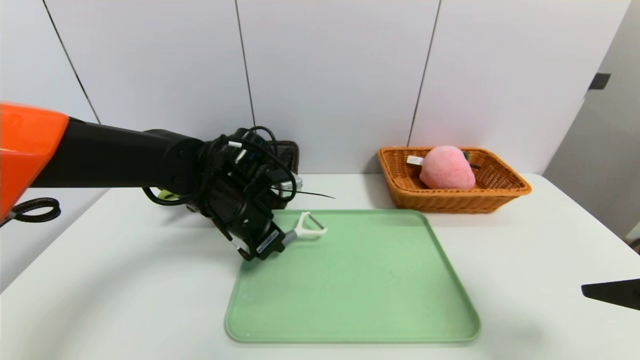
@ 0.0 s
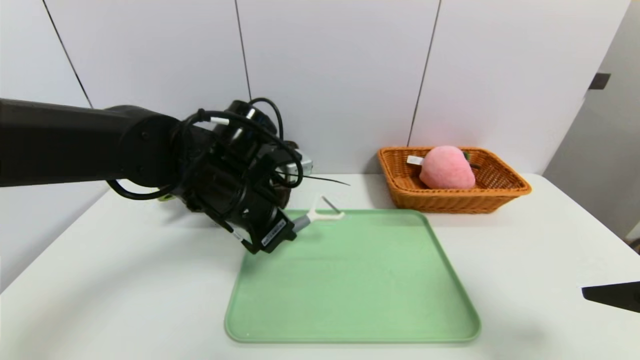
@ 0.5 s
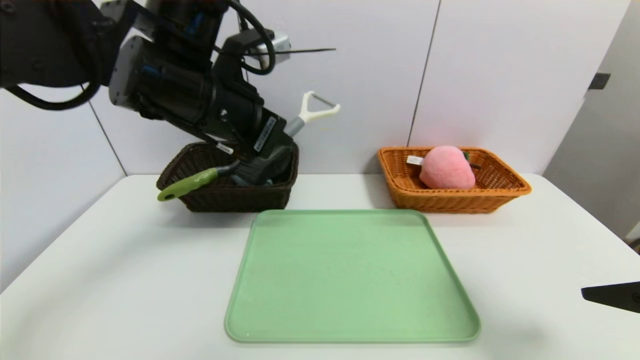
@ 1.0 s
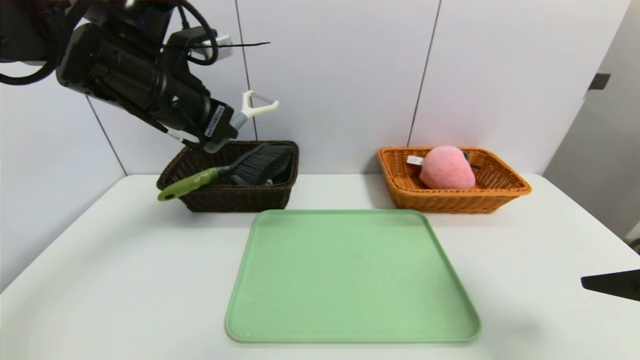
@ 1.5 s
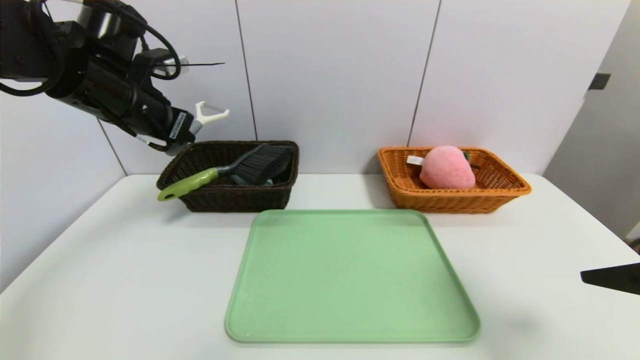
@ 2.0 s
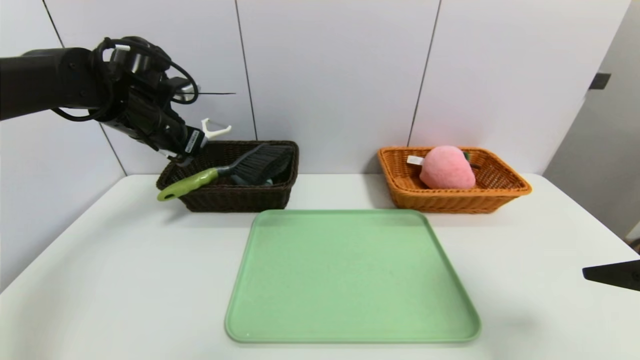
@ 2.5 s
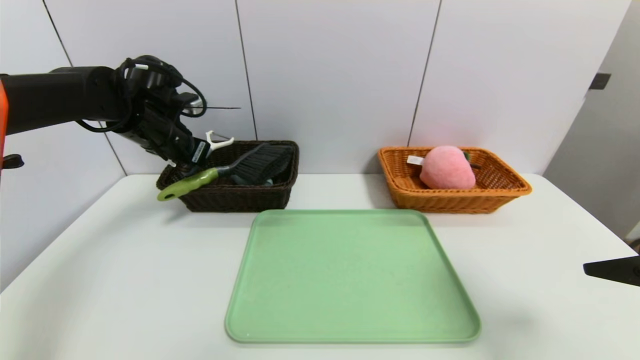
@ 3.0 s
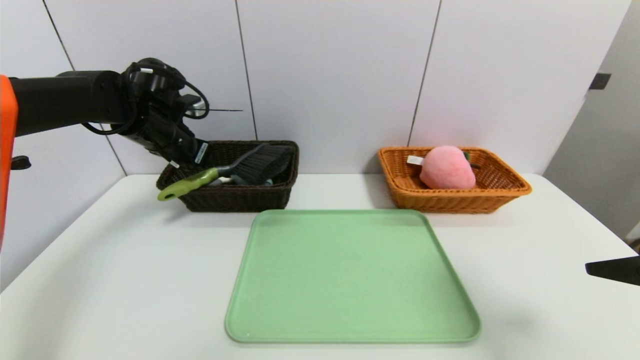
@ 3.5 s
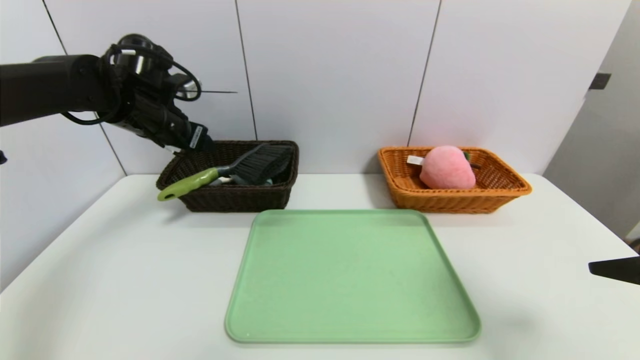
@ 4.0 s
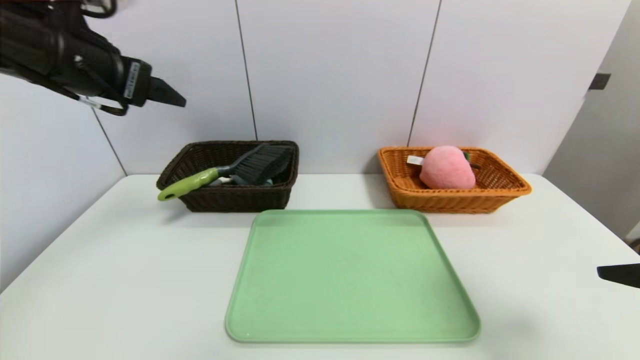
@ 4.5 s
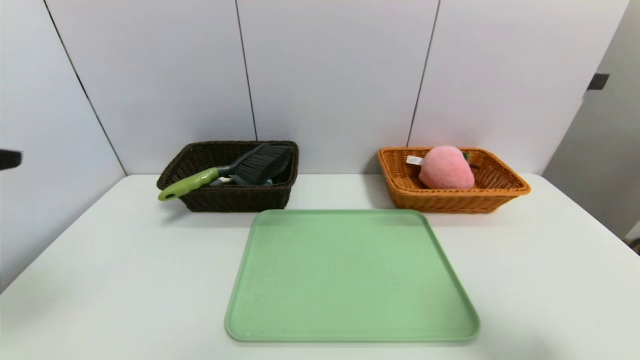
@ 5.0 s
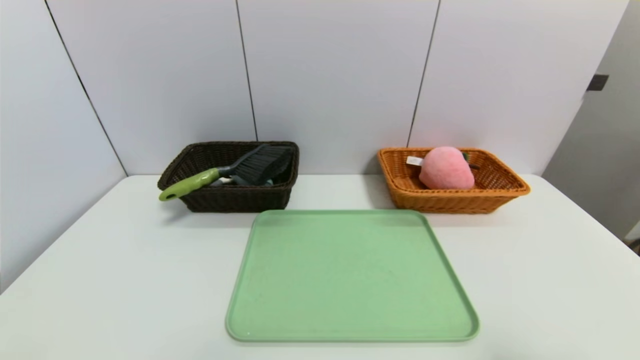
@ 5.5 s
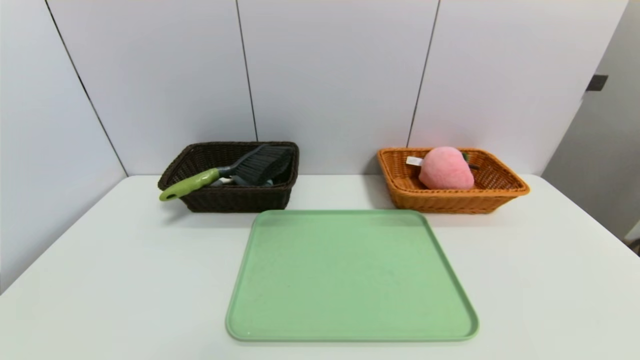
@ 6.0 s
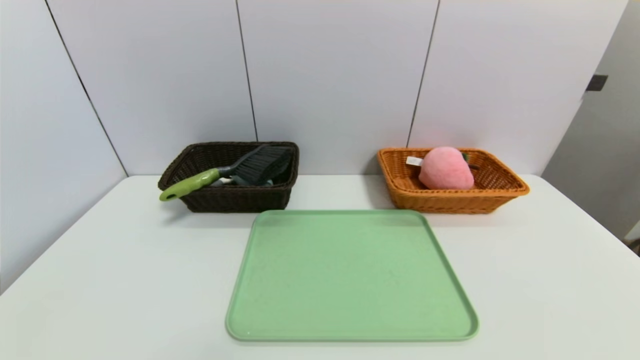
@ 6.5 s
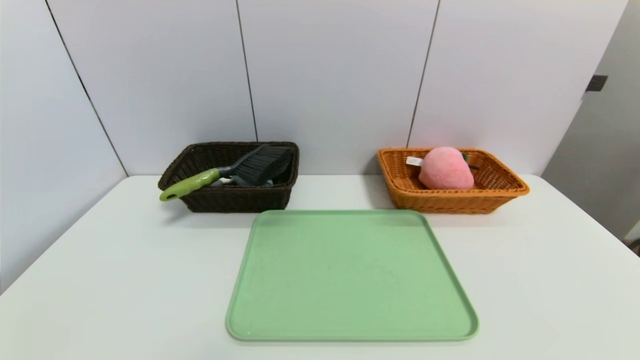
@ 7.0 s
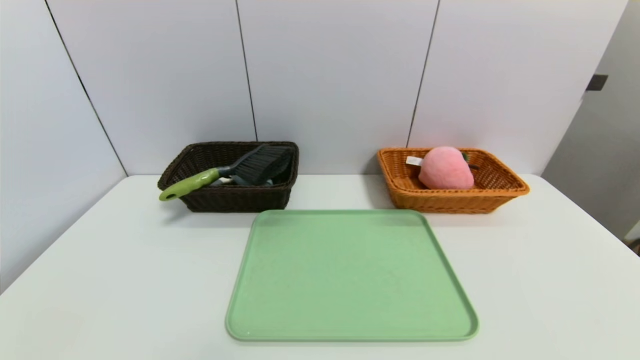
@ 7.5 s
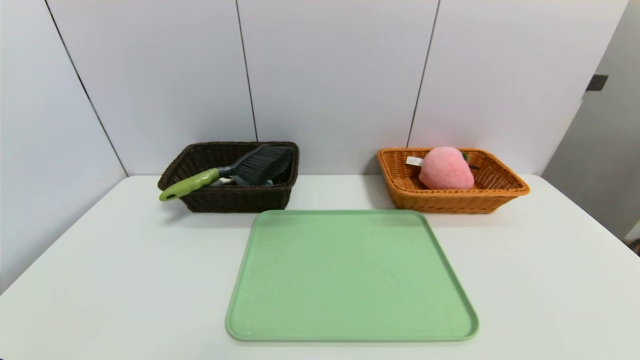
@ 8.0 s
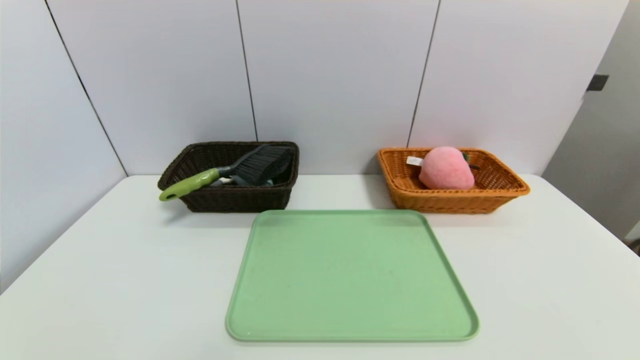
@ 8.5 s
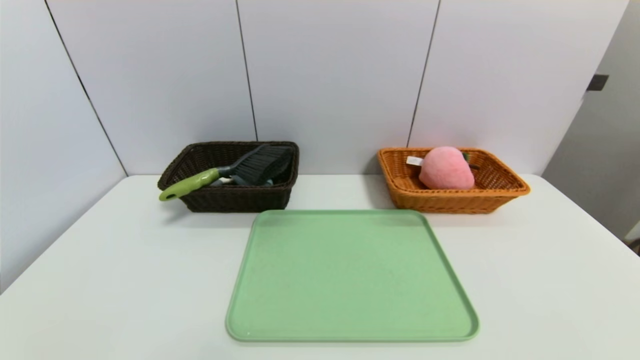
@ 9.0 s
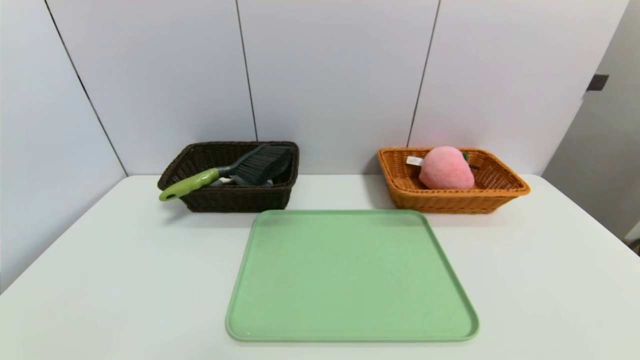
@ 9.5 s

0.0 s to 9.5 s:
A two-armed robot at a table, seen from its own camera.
Task of the whole recording: place the food in the right basket with the right gripper, and place the non food items in the left basket with the left gripper.
Step, 0.0 to 3.5 s: Grasp the peeler and put it in the left basket.
0.0 to 2.0 s: The left gripper travels upward and to the left by some 20 cm.
2.0 to 4.0 s: The left gripper opens.
4.0 to 5.5 s: The left gripper shifts roughly 40 cm backward. The right gripper shifts some 10 cm backward.
